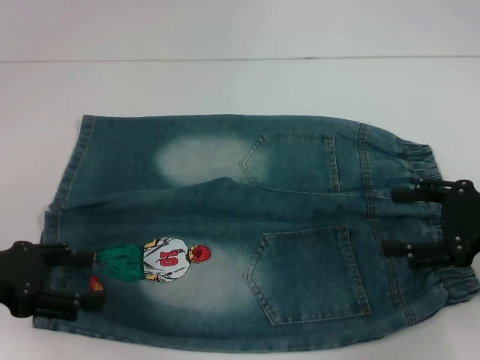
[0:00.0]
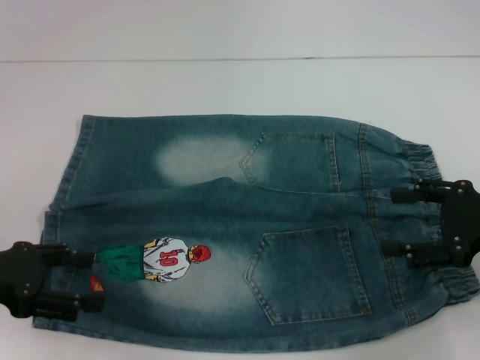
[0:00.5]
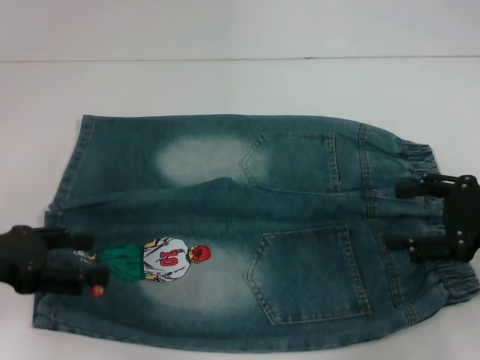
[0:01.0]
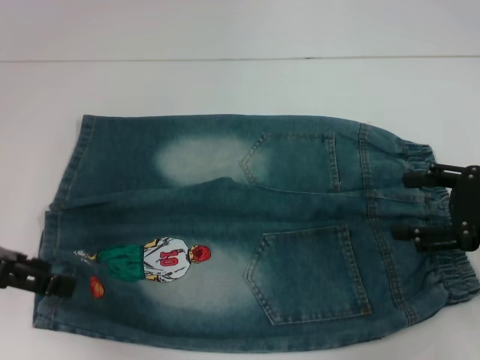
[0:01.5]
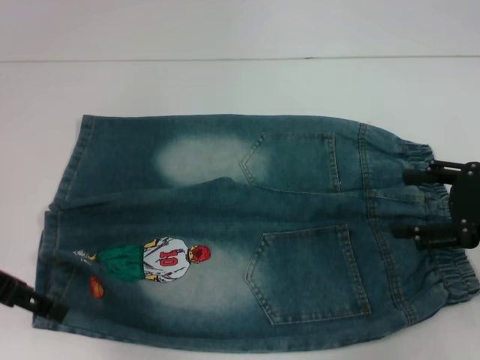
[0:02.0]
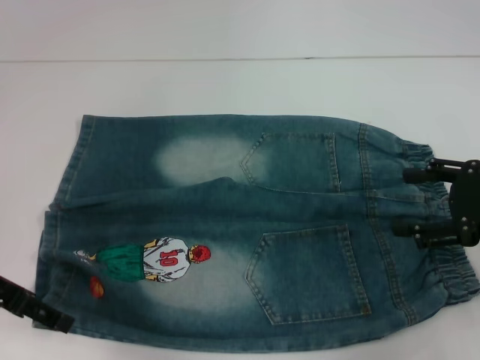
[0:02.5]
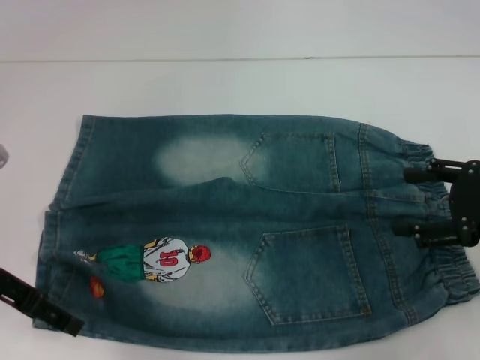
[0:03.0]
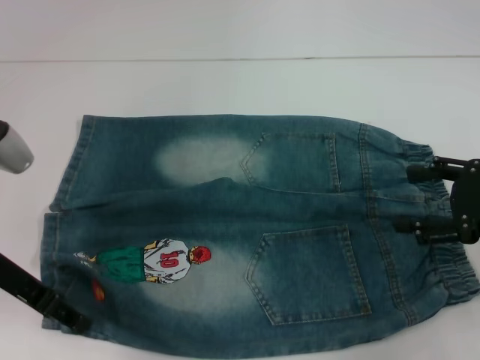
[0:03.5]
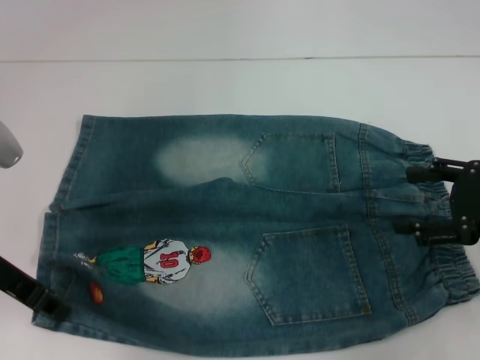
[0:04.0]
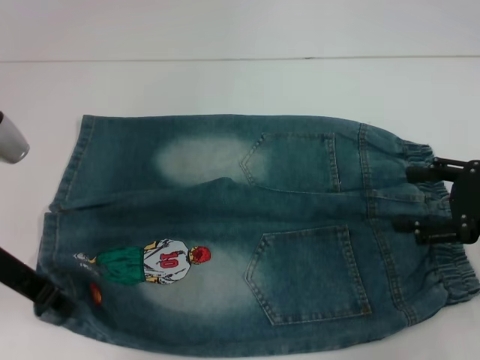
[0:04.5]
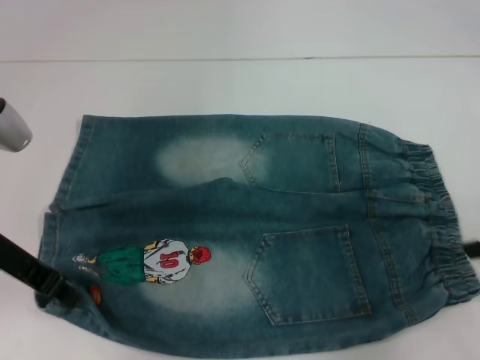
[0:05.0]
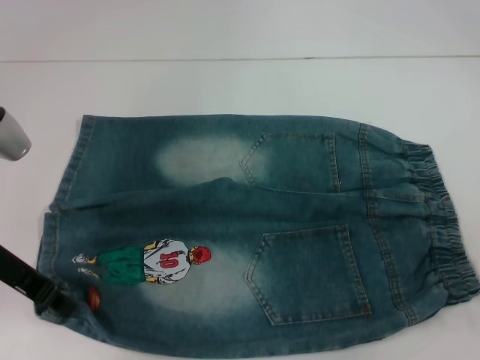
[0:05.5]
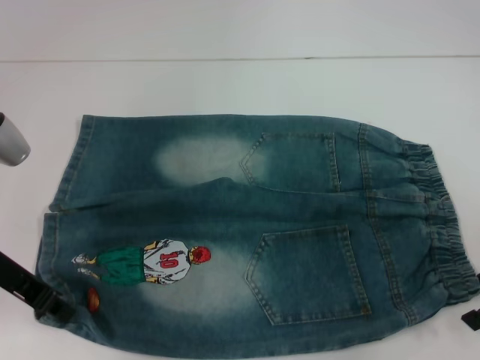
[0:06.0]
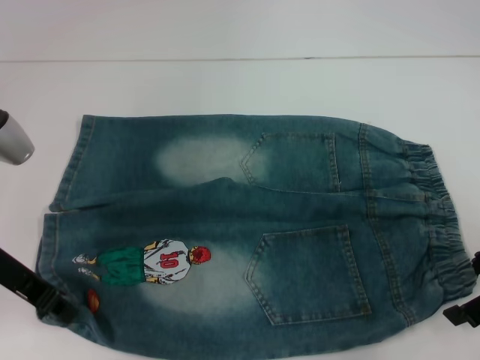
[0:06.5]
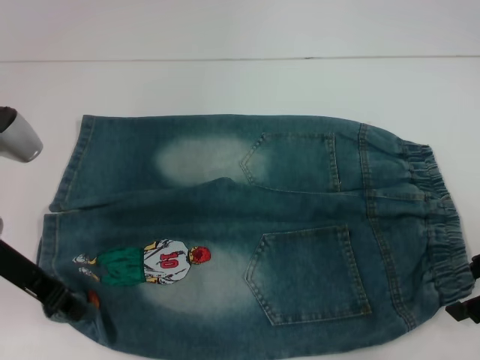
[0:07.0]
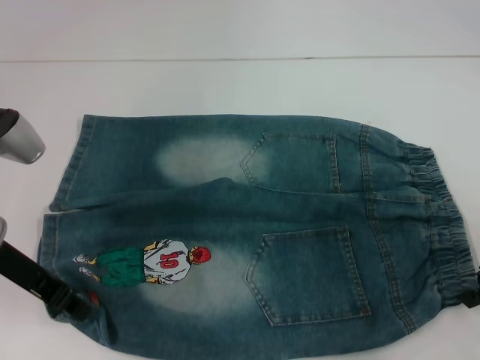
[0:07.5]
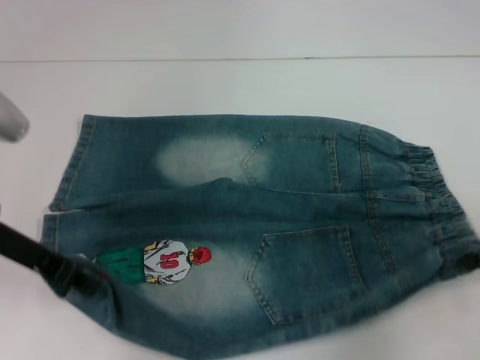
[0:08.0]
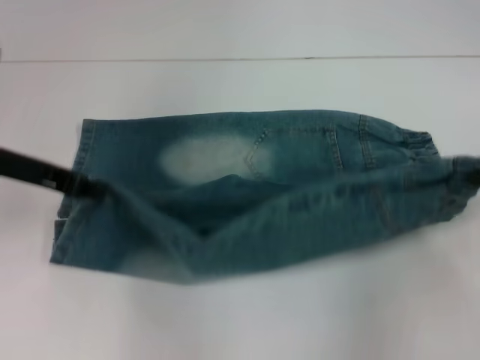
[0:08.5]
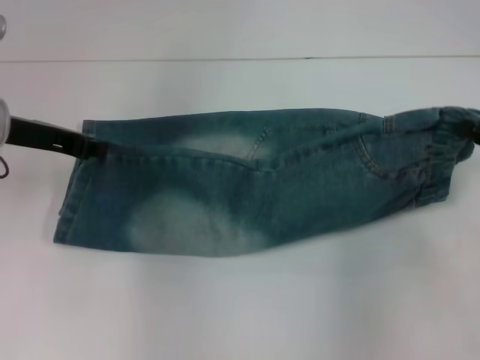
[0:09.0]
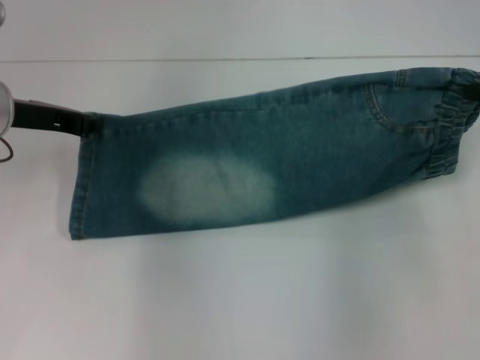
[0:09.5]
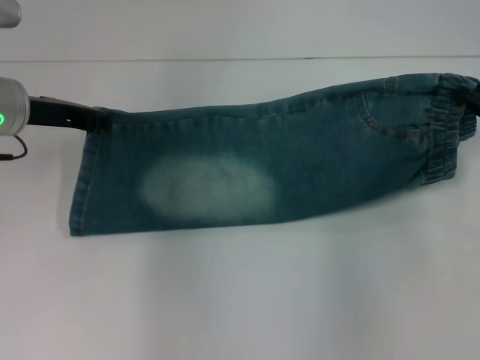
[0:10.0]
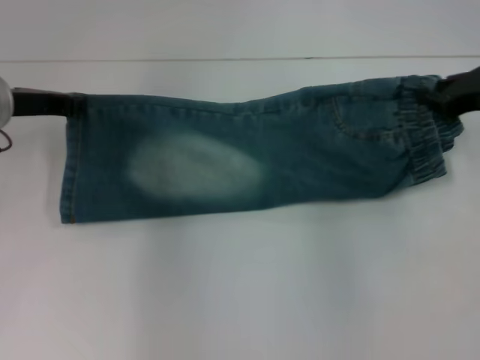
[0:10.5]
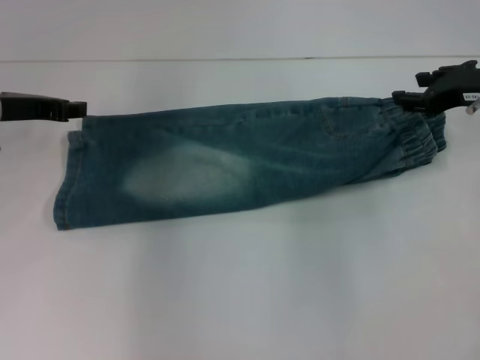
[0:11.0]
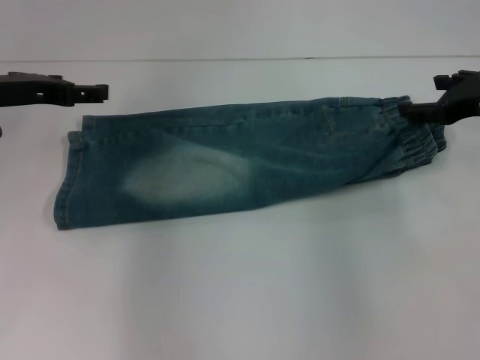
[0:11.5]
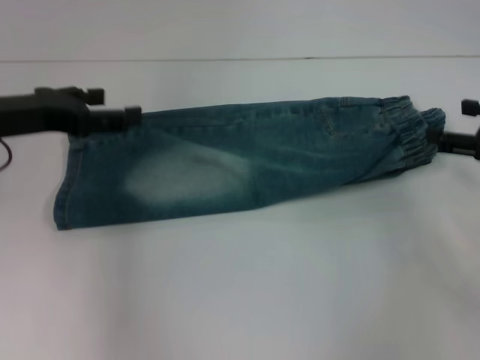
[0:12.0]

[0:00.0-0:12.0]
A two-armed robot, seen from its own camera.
Step, 0:00.0 to 0:03.5: Grab the lower left pant leg with your left hand.
Step, 0:04.0 to 0:07.0: Hold the lower right waistband with your right hand.
Step, 0:07.5 to 0:11.0: Fold upward with your right hand.
0:00.0 to 0:02.0: The left gripper shifts by roughly 5 cm.
0:02.0 to 0:04.0: The left gripper closes its fingers.
0:04.0 to 0:06.0: The left gripper closes up.
0:06.0 to 0:08.0: The right gripper closes up.
0:08.0 to 0:10.0: The grippers both shift forward by some 10 cm.
0:10.0 to 0:12.0: The left gripper changes place by some 5 cm, and opens its fingers. The right gripper changes place by some 5 cm, and opens.

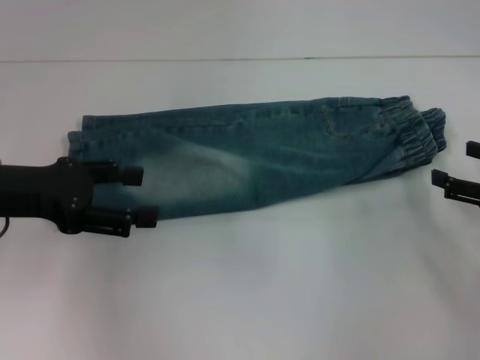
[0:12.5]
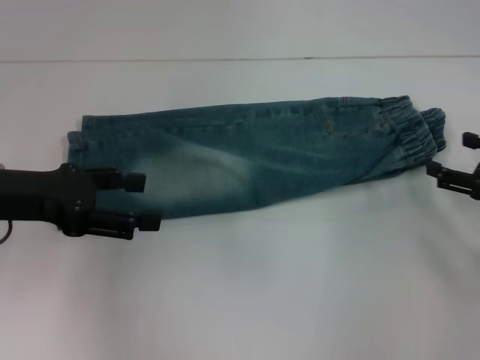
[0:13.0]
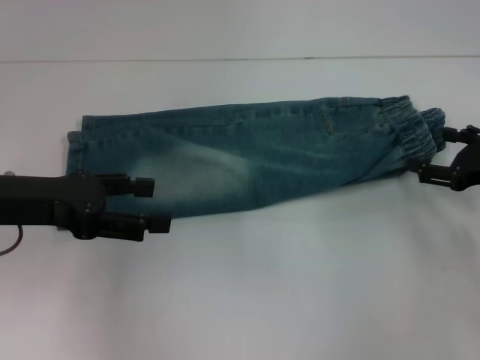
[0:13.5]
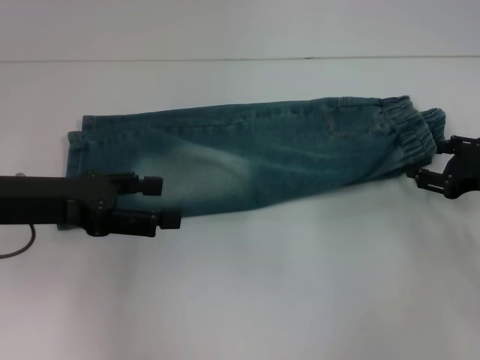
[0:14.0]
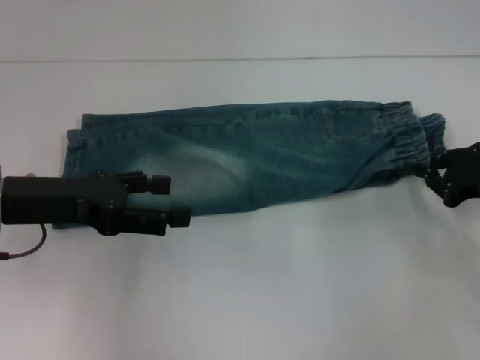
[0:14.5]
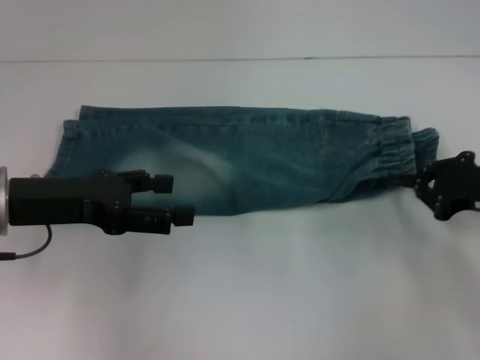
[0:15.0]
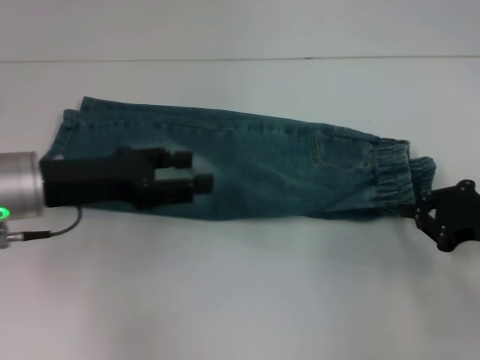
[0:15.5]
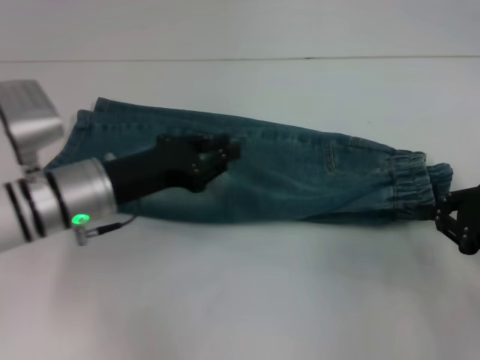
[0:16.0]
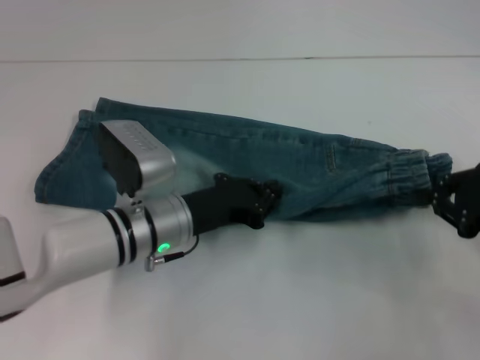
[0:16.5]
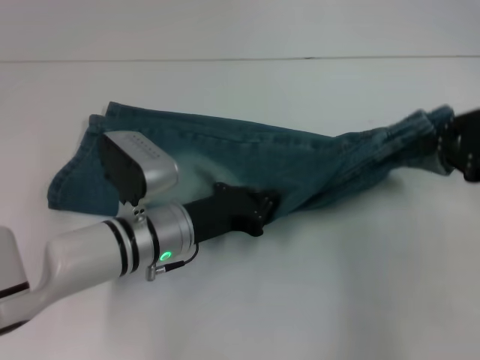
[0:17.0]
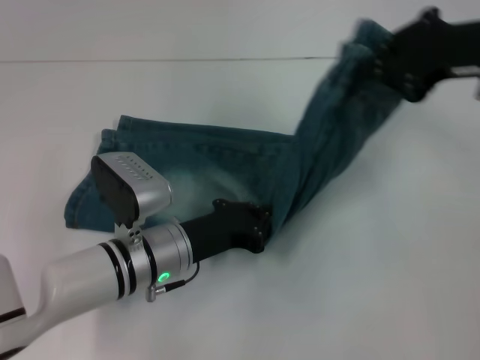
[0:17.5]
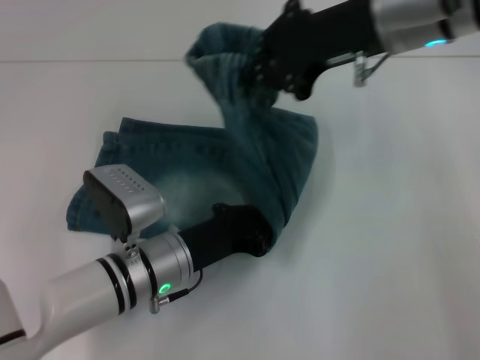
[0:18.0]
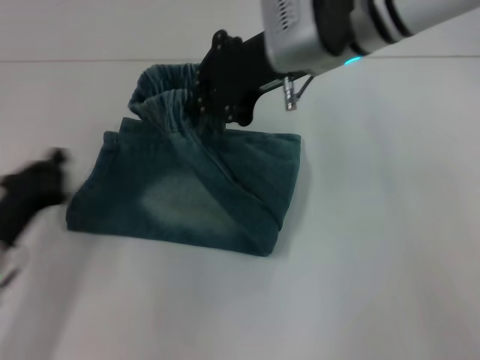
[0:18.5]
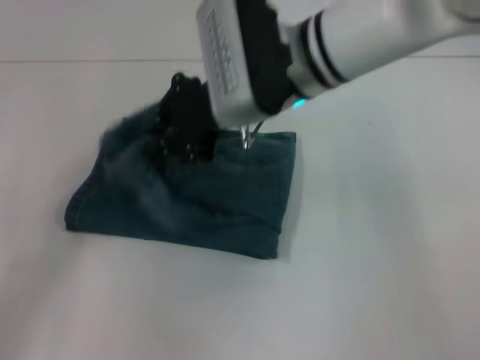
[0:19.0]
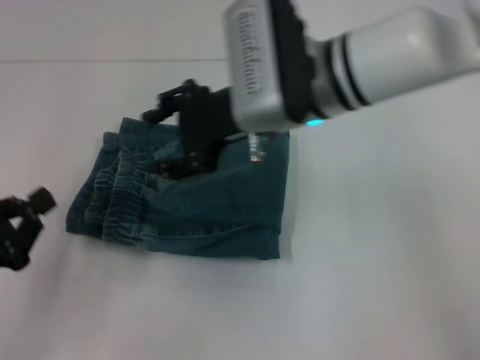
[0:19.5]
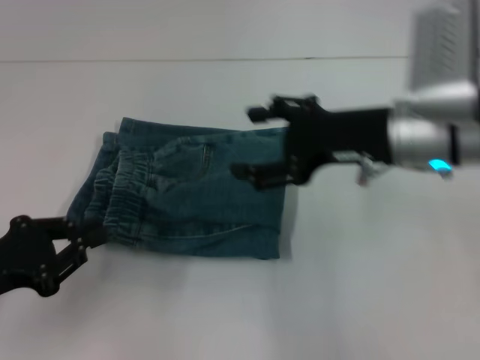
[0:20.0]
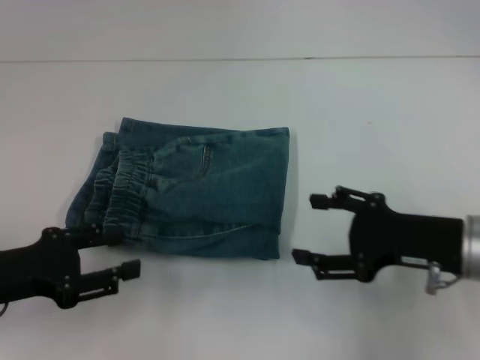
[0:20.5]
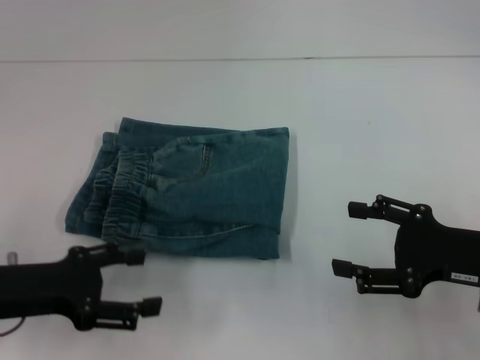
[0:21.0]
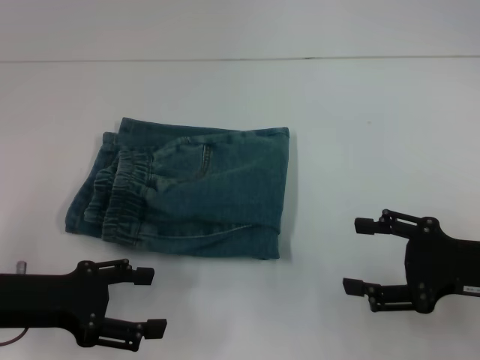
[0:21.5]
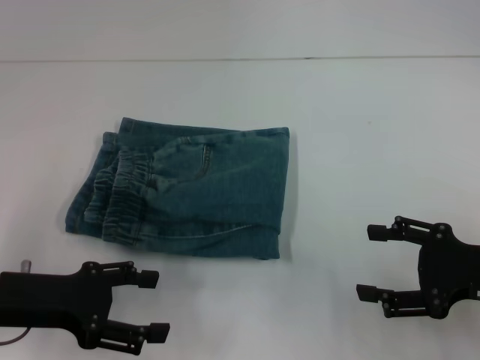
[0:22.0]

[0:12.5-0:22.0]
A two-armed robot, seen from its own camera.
Step, 0:12.5 to 0:14.0: Grab the waistband with your right hand.
Step, 0:14.5 to 0:18.0: Press the middle of the pants with your left hand.
Step, 0:18.5 to 0:19.5: Fold to the left with your right hand.
0:12.5 to 0:14.5: The right gripper moves some 5 cm, and closes its fingers.
0:14.5 to 0:16.5: The right gripper moves roughly 5 cm. Meanwhile the left gripper shifts some 20 cm to the right and downward, and closes up.
0:16.5 to 0:18.0: The right gripper heads to the left, upward and forward, covering about 25 cm.
0:18.0 to 0:20.0: The right gripper shifts approximately 10 cm downward and backward, moves roughly 10 cm to the left and comes back, and opens; the left gripper travels to the left by approximately 20 cm.
0:20.0 to 0:22.0: The left gripper opens. Meanwhile the right gripper is displaced to the right, backward and downward by approximately 15 cm.
